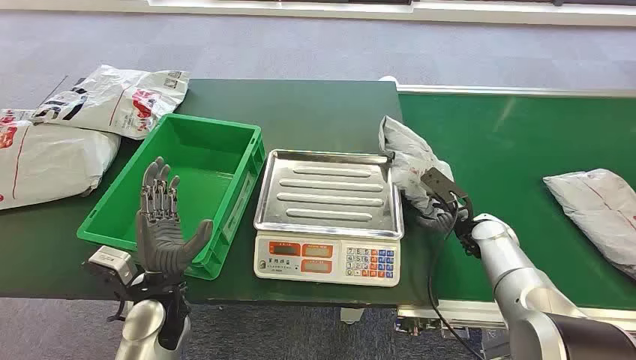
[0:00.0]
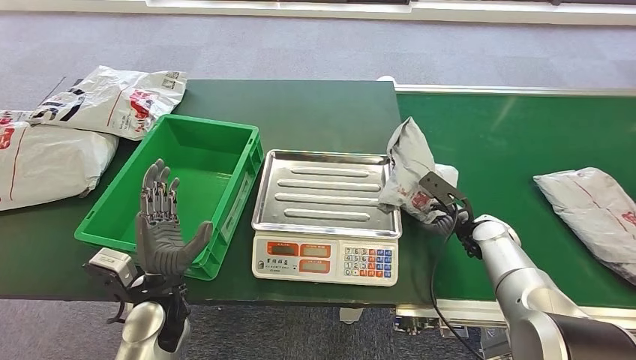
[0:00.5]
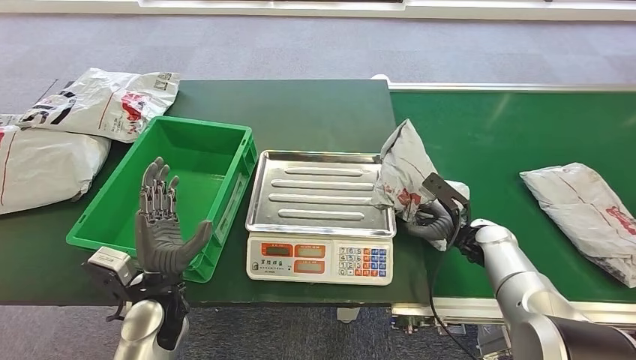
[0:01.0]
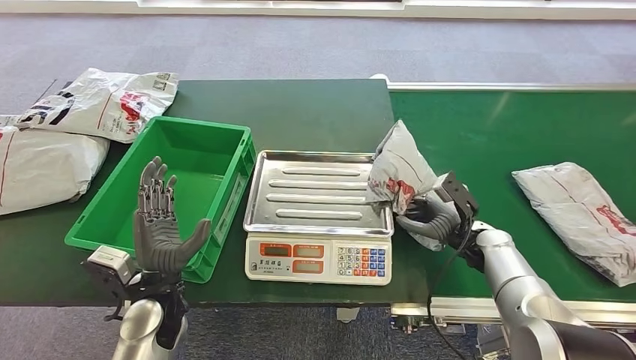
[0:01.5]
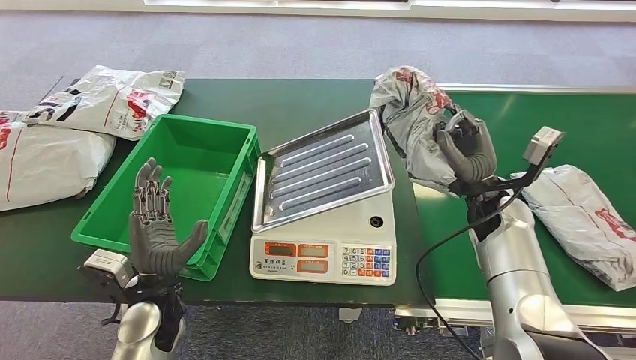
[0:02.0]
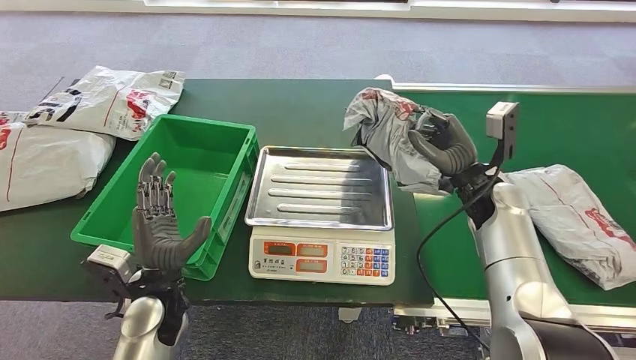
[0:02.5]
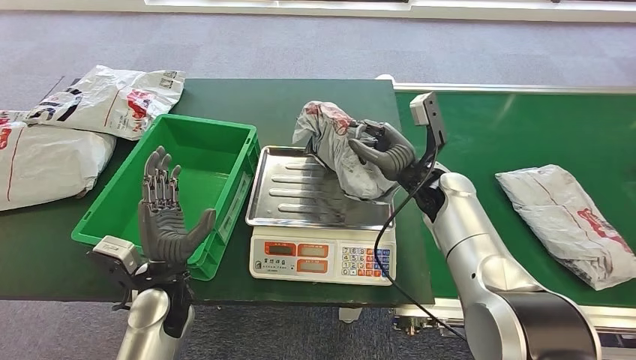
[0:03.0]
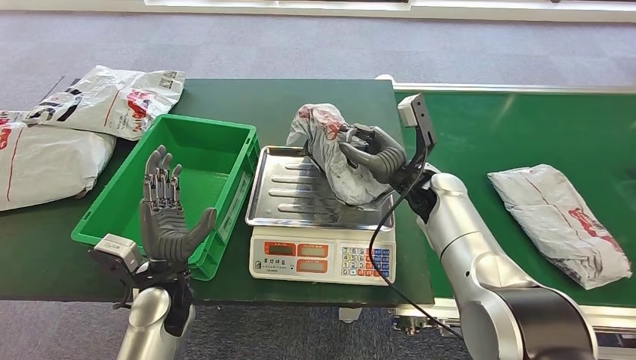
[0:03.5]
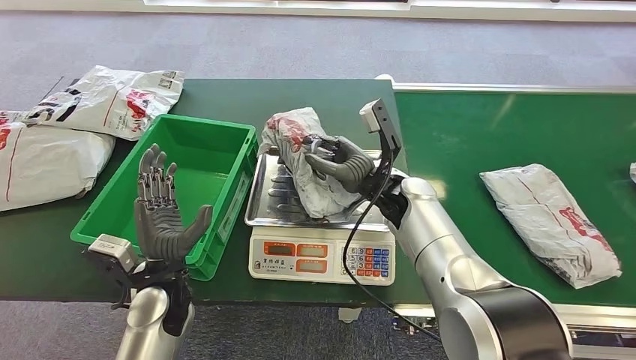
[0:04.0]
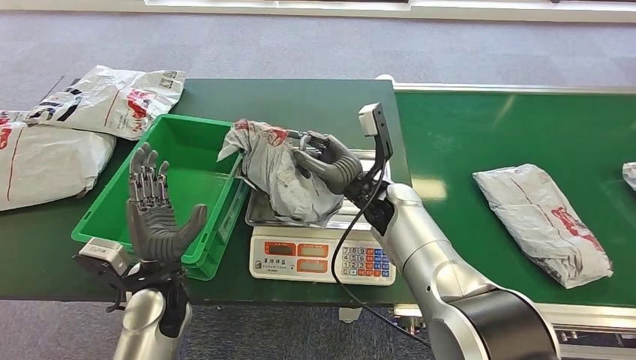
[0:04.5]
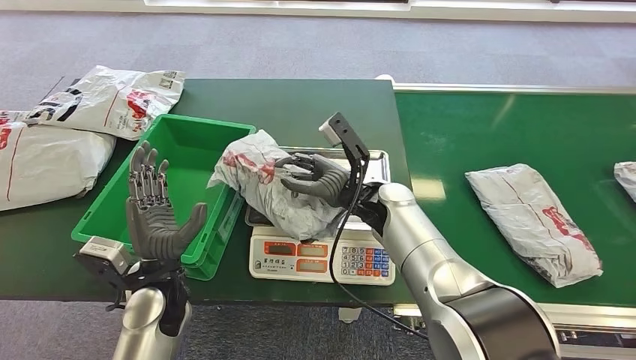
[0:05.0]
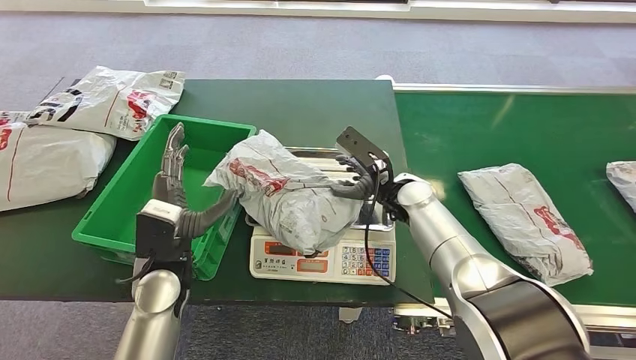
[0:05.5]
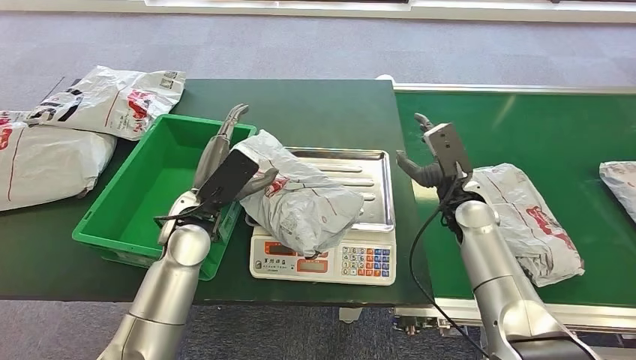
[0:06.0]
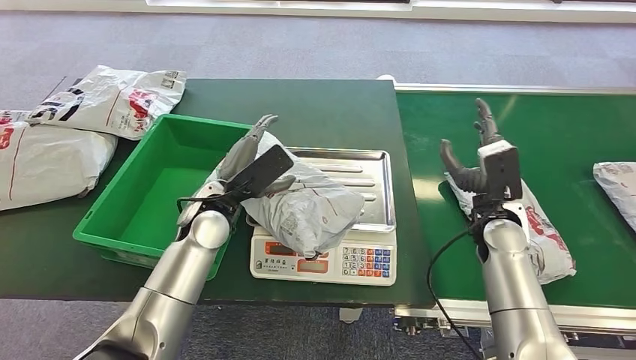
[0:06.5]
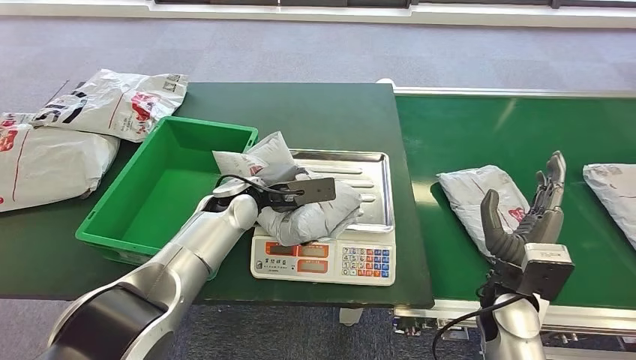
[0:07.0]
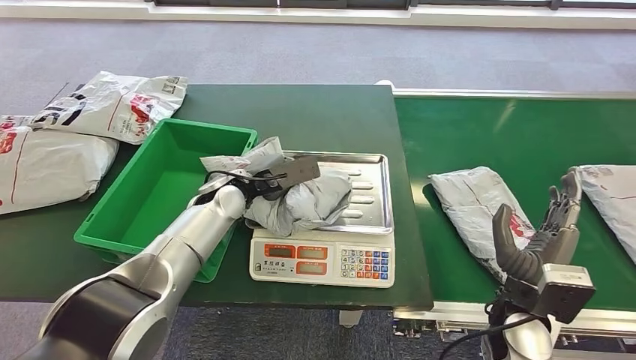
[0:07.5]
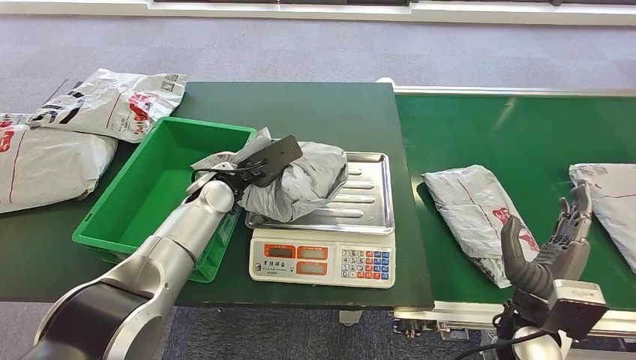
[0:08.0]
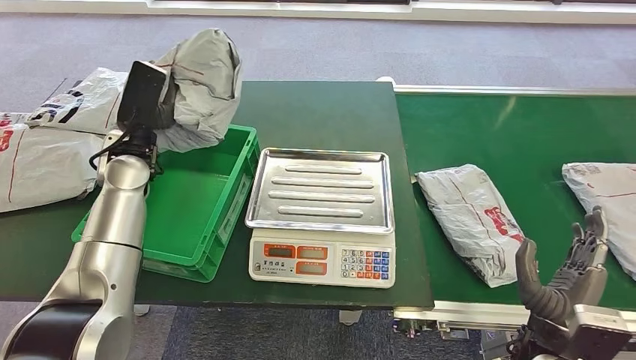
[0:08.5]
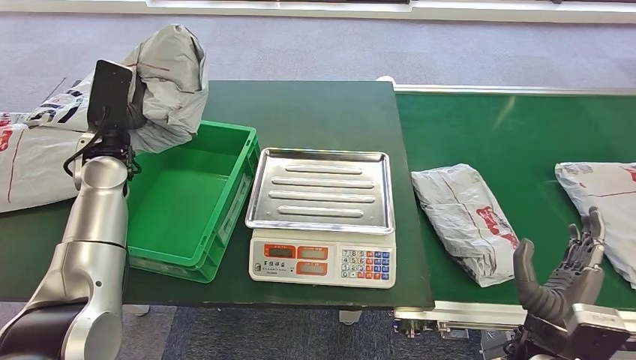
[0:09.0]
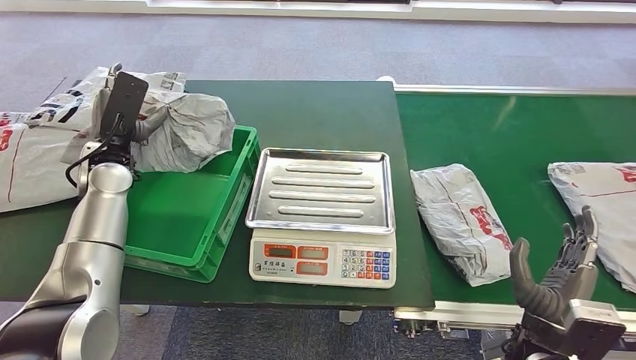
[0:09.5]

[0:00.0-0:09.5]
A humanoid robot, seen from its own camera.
Task of the whole recording: Weigh the package on the weighing device and place it in the left basket.
Step, 0:00.0 to 0:02.0: Pick up the package from the conveyor belt.
Step, 0:02.5 to 0:05.5: Place the package onto the inbound machine.
Step, 0:06.0 to 0:08.5: Pick up the package from the inbound machine.
Step, 0:09.0 to 0:09.5: Place the package into the parcel locker.
